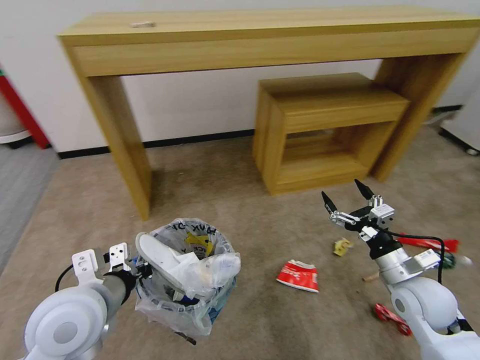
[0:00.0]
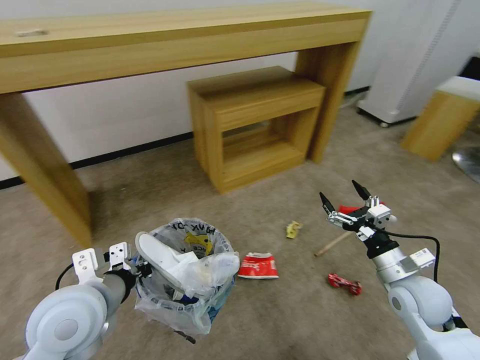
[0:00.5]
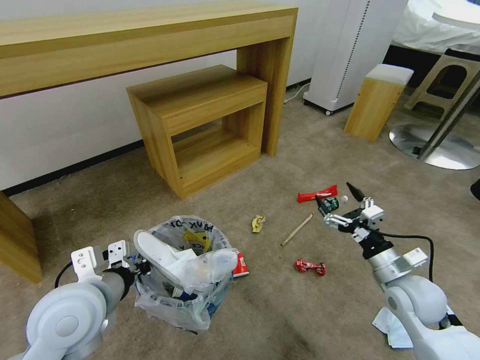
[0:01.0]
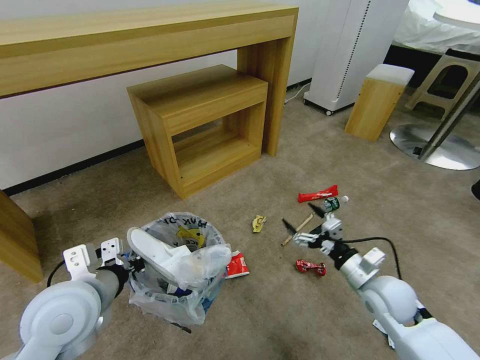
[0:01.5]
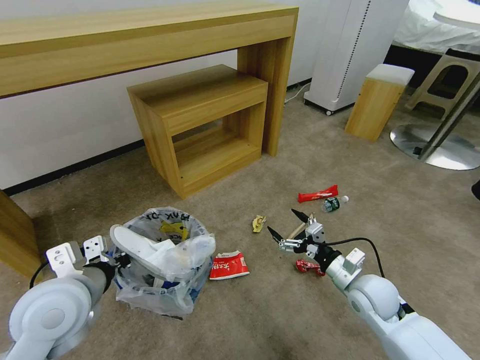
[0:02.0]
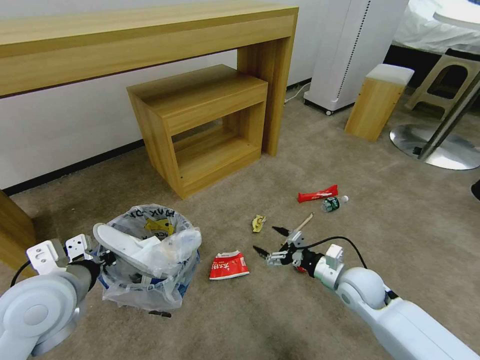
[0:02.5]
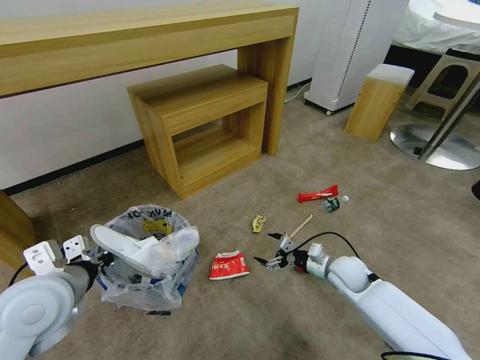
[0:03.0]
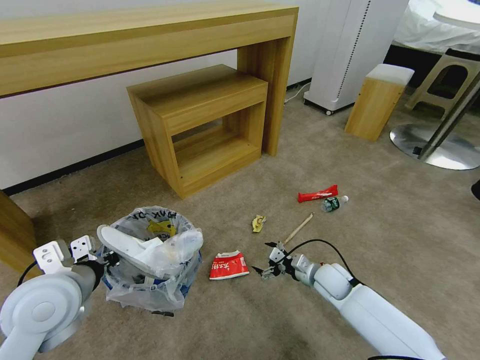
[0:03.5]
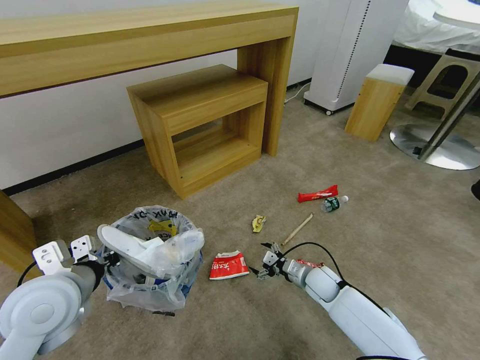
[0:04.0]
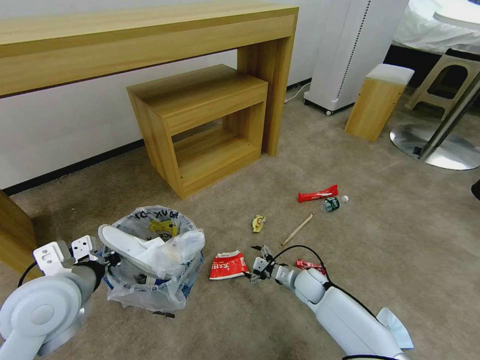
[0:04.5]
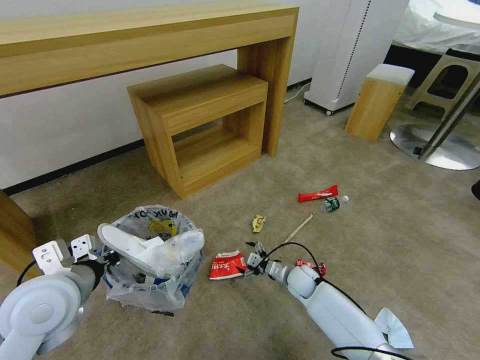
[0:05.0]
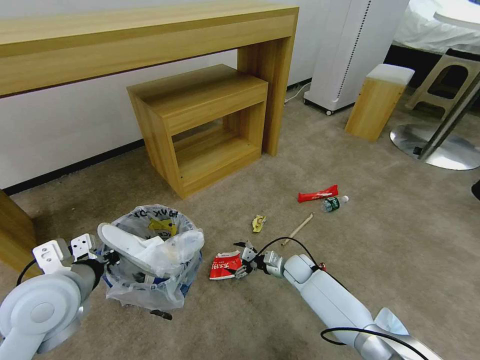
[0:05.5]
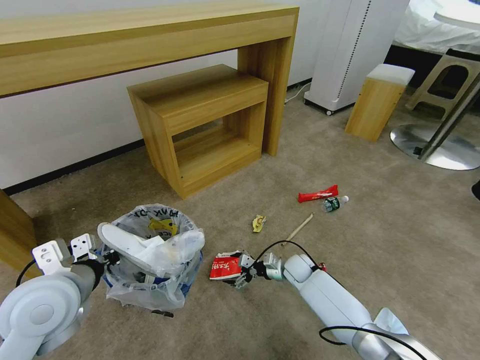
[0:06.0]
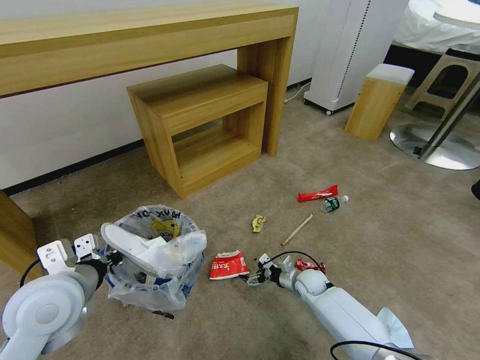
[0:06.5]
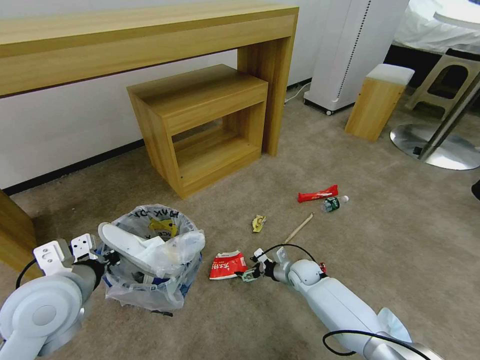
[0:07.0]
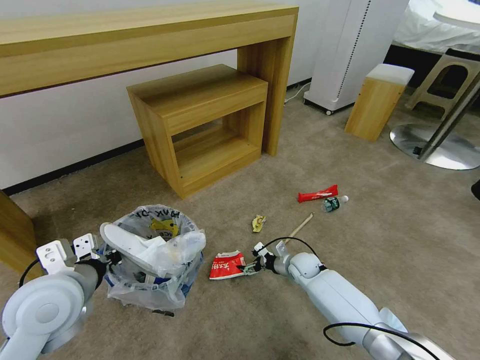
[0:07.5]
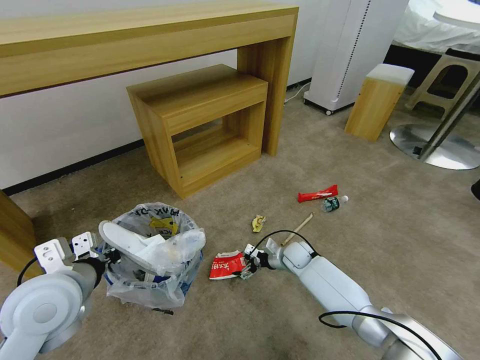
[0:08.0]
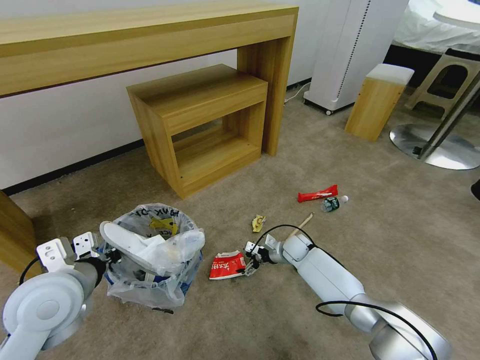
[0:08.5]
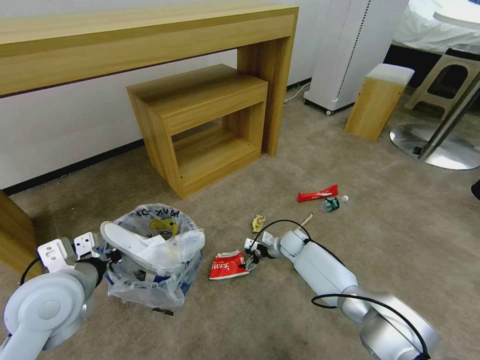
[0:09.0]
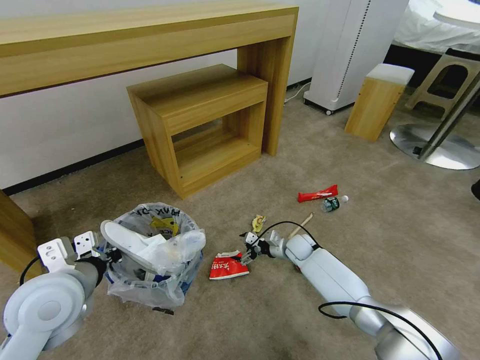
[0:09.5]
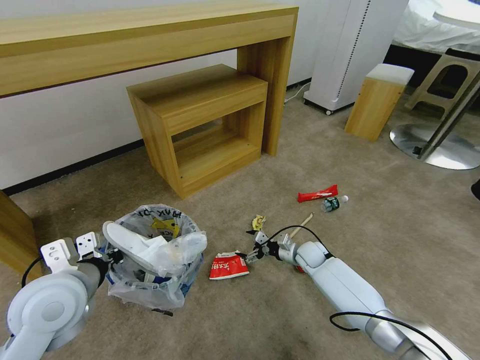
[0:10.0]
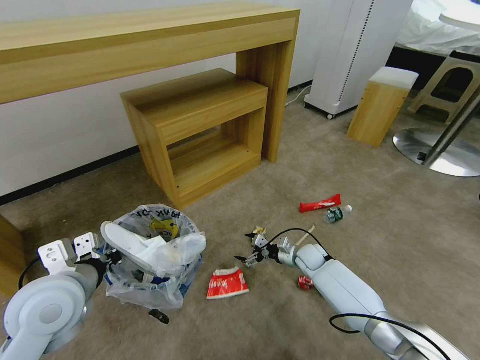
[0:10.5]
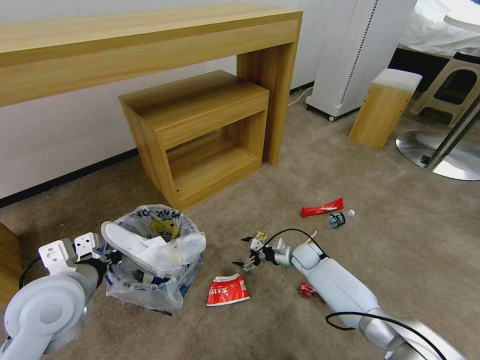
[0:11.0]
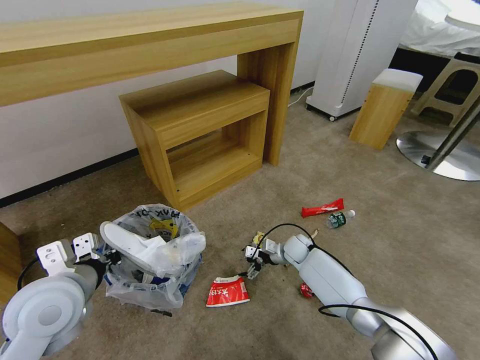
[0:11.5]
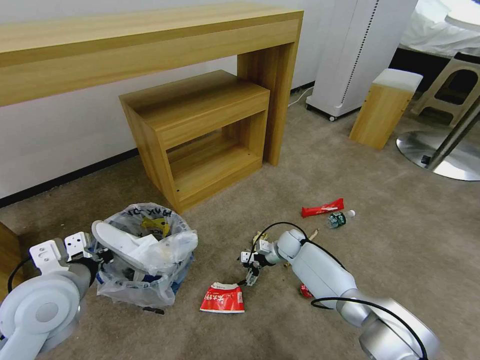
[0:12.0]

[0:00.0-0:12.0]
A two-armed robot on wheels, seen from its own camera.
Task of the whole recording: Pick up the trash bin and place the garbage on the floor into it.
0:00.0 to 0:02.0: The right gripper travels to the left and downward by approximately 10 cm.
0:02.0 to 0:04.0: The right gripper is displaced downward, forward and to the left by about 15 cm.
0:04.0 to 0:06.0: The right gripper goes about 5 cm forward.
0:08.0 to 0:10.0: The grippers make only small movements.
0:10.0 to 0:12.0: The right gripper is displaced to the left by some 5 cm.

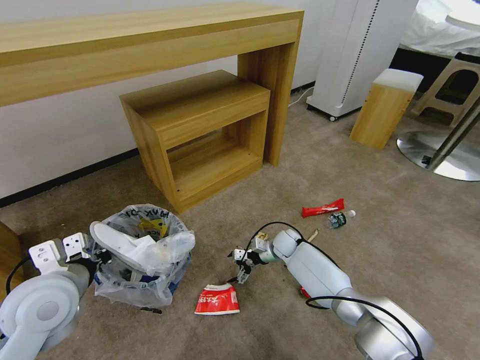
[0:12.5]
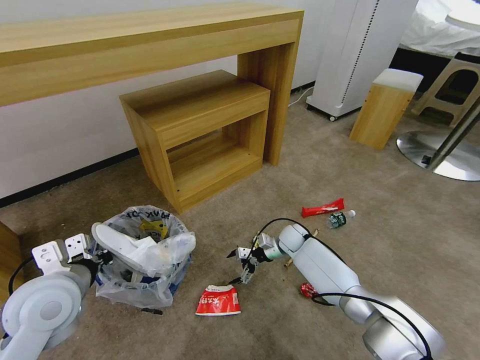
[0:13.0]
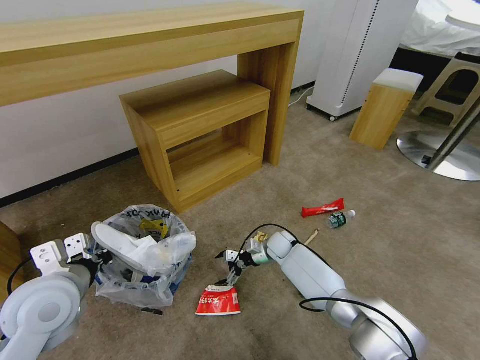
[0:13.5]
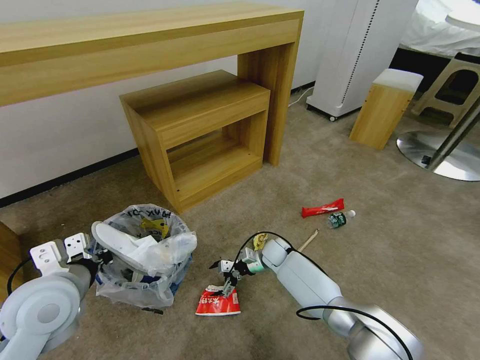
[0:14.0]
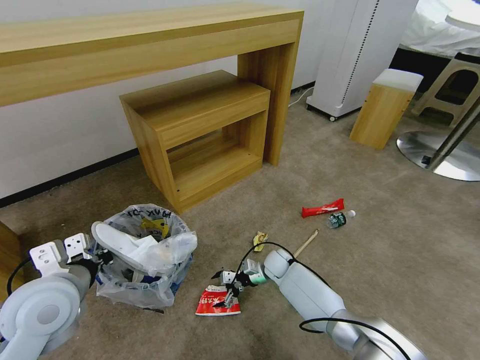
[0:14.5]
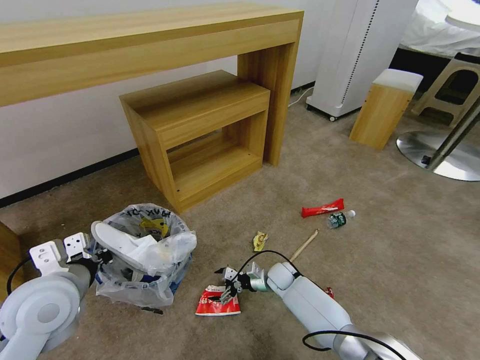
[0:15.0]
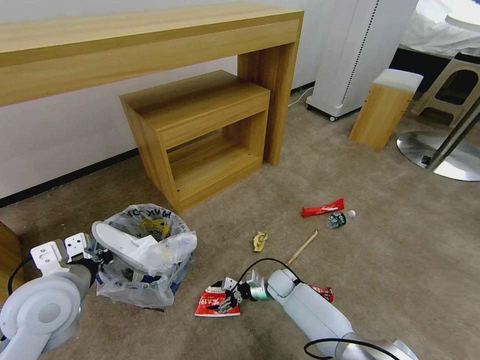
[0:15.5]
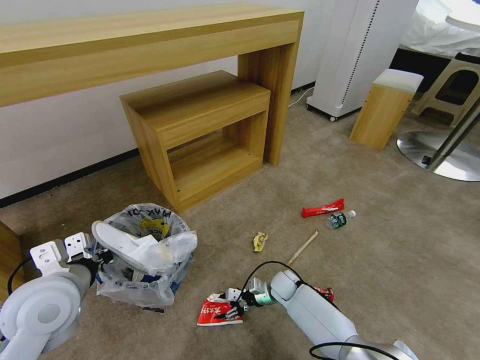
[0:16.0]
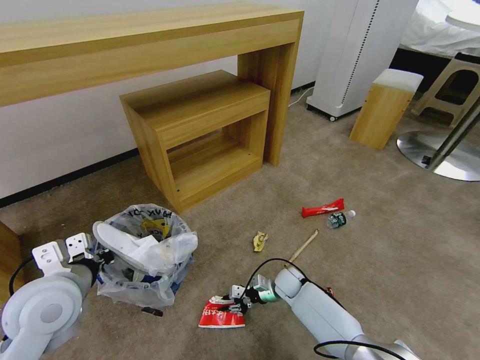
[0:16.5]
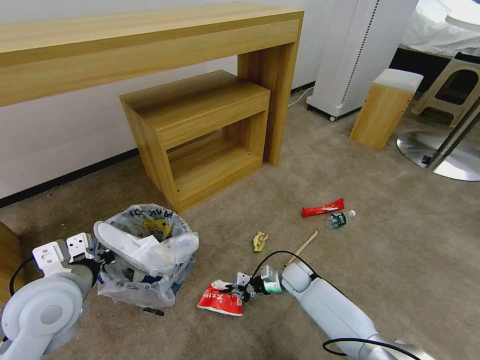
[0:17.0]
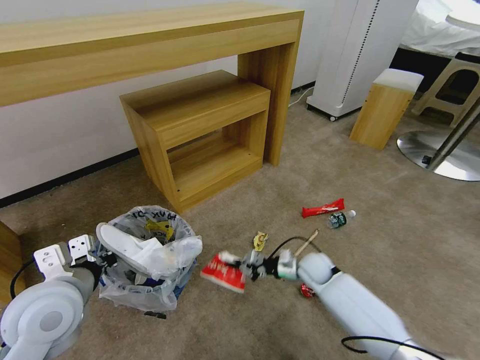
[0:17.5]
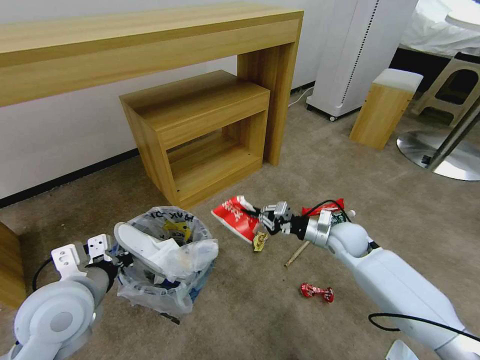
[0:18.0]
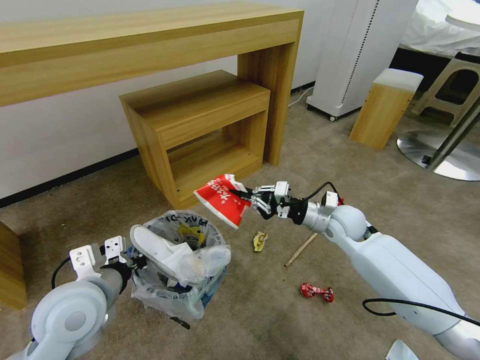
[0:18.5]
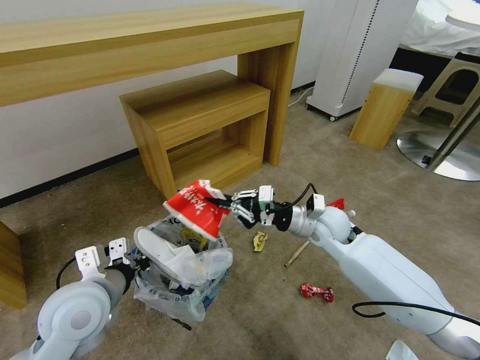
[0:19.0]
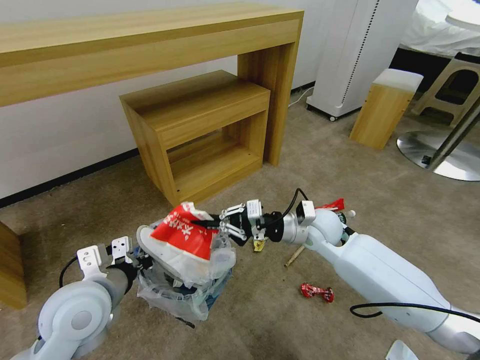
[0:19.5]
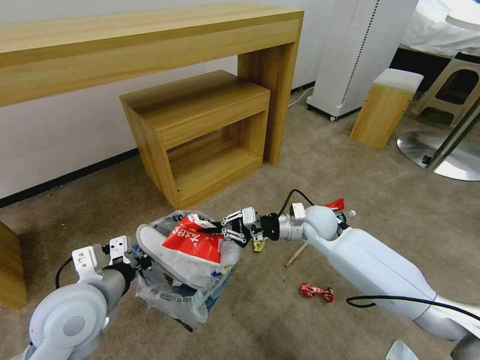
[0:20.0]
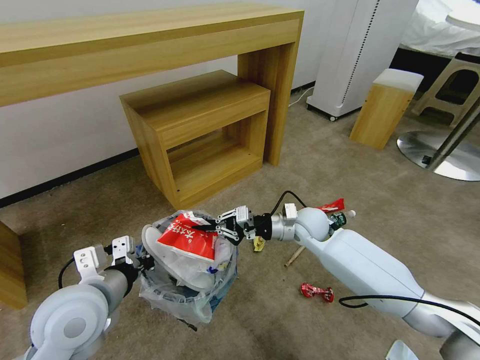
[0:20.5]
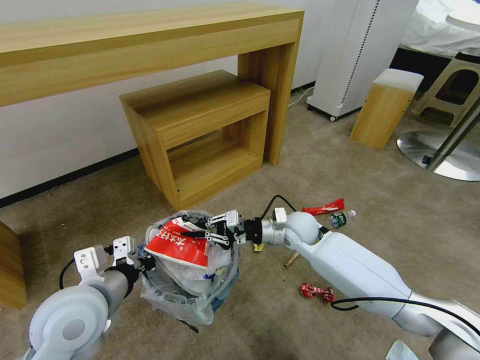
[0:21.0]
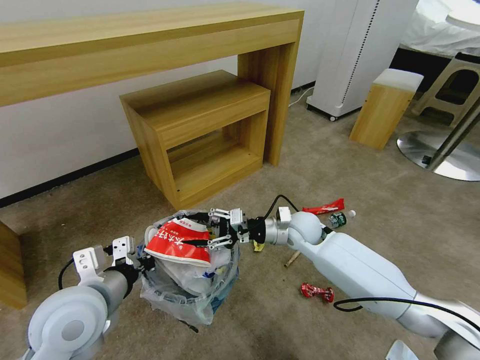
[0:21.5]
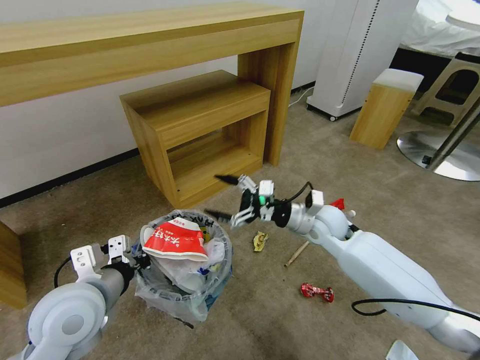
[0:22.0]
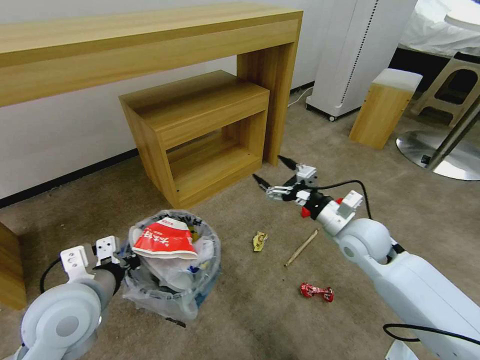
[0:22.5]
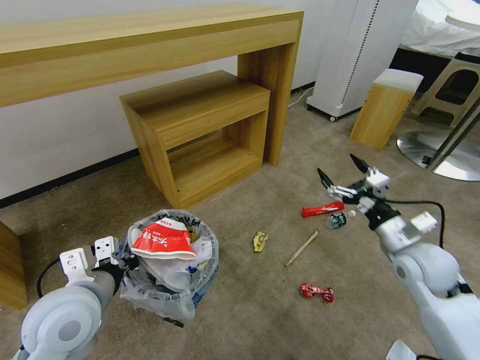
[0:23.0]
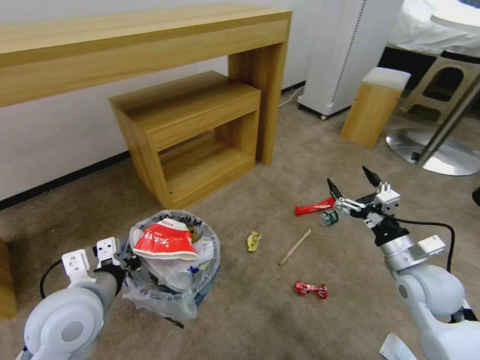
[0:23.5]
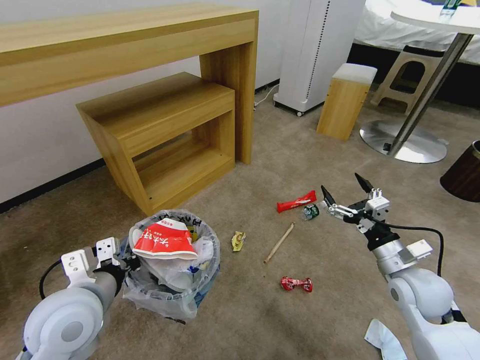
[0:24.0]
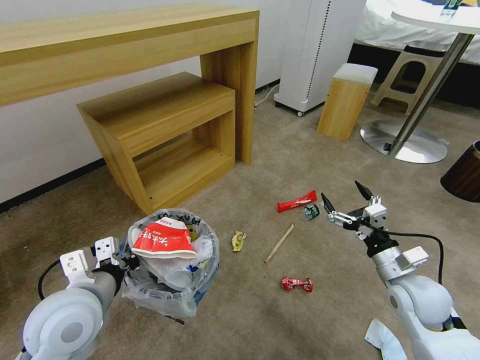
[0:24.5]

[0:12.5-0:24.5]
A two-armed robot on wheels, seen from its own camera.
Task of the whole recording: Pick up the trash bin and place the garbage on the floor into it.
0:12.5 to 0:14.5: The right gripper heads backward, covering roughly 5 cm.
0:14.5 to 0:16.5: The right gripper shifts roughly 5 cm backward, and closes its fingers.
0:16.5 to 0:18.5: The right gripper is displaced upward by roughly 25 cm.
0:18.5 to 0:20.5: The right gripper travels to the left by some 10 cm.
0:20.5 to 0:22.5: The right gripper moves to the right, backward and upward, approximately 10 cm, and opens up.
0:22.5 to 0:24.5: The right gripper goes some 15 cm backward, to the right and downward.

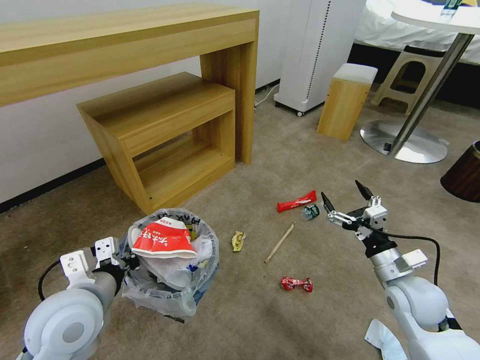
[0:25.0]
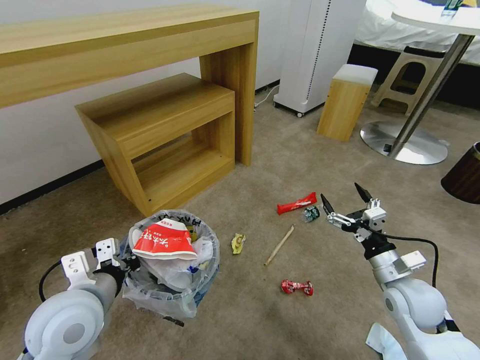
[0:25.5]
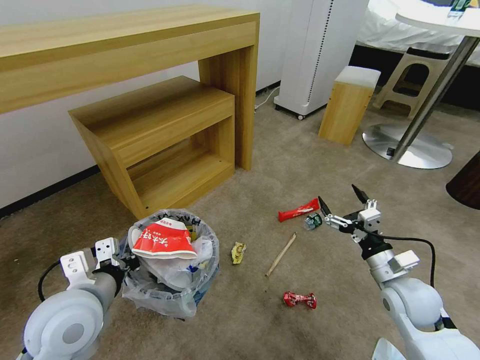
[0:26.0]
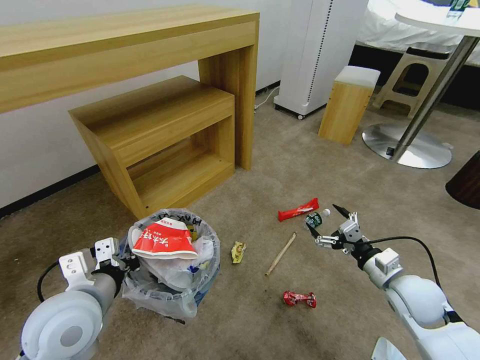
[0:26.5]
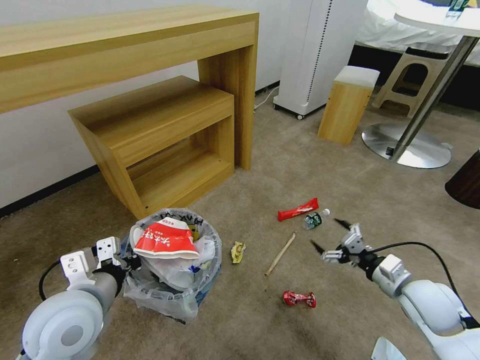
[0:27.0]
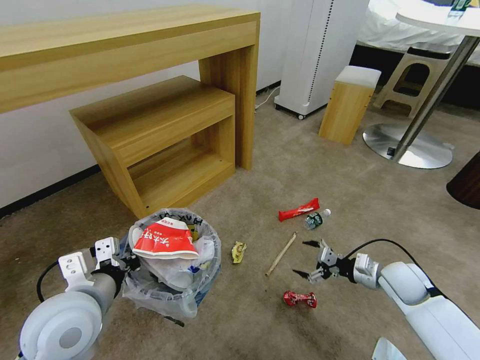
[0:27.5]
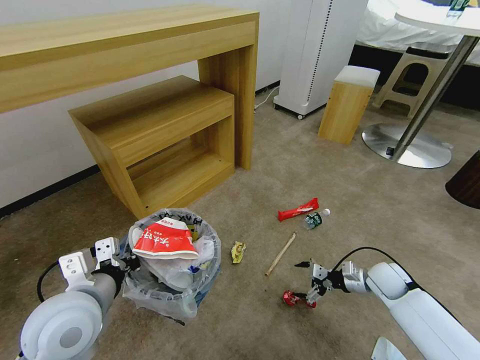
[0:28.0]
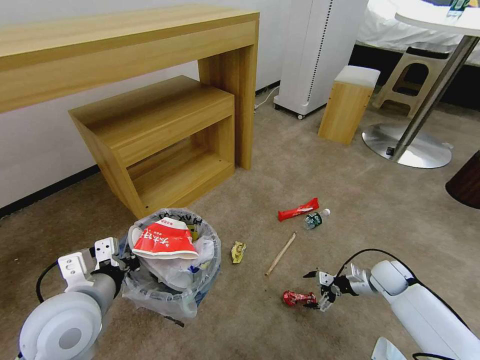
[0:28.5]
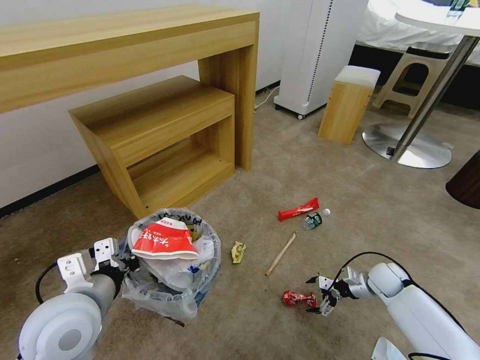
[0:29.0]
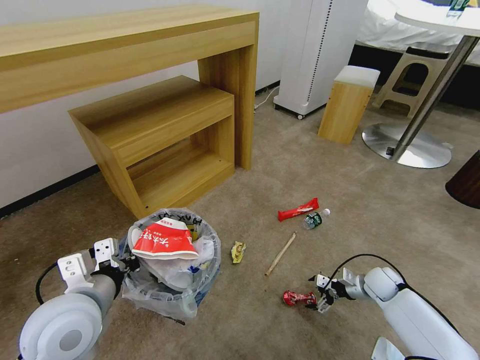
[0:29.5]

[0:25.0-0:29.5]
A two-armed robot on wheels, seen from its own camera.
Task of the whole recording: Pick up the trash bin and place the garbage on the floor into it.
0:27.0 to 0:29.5: The right gripper moves downward and forward, some 20 cm.
